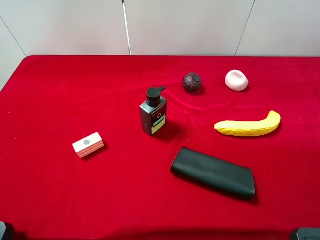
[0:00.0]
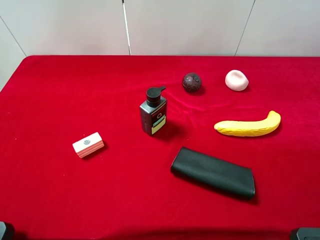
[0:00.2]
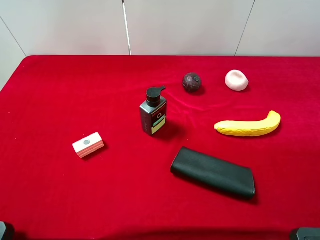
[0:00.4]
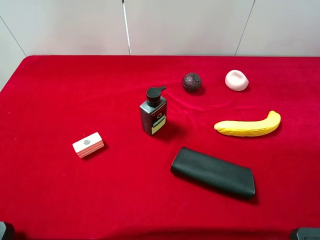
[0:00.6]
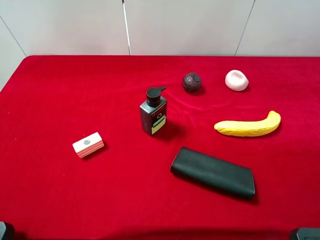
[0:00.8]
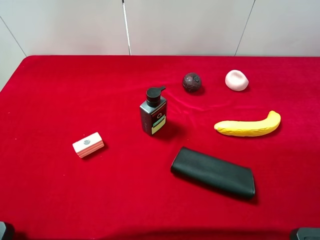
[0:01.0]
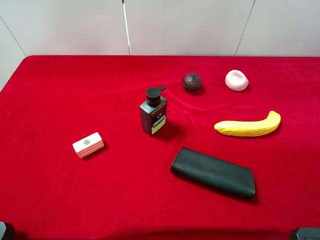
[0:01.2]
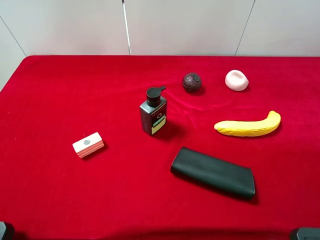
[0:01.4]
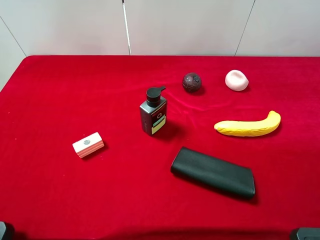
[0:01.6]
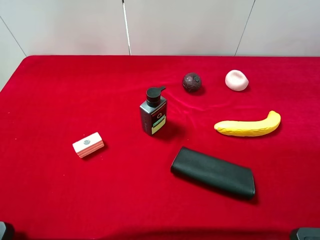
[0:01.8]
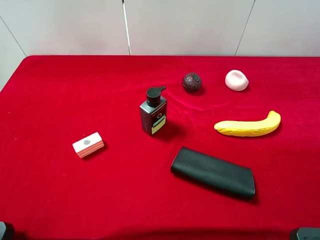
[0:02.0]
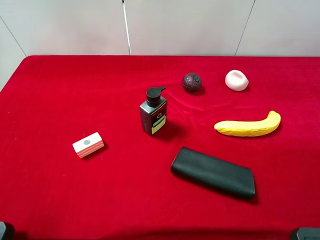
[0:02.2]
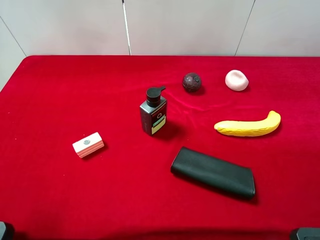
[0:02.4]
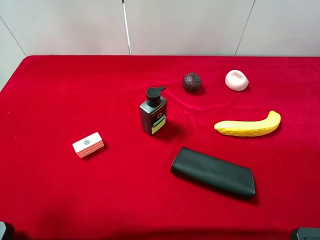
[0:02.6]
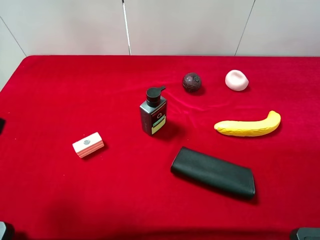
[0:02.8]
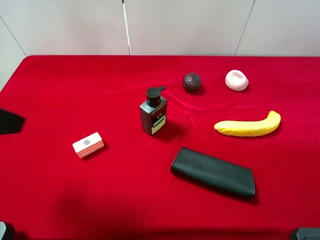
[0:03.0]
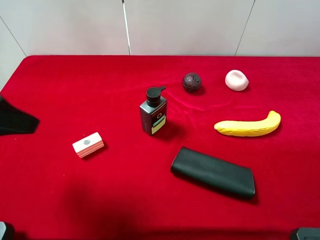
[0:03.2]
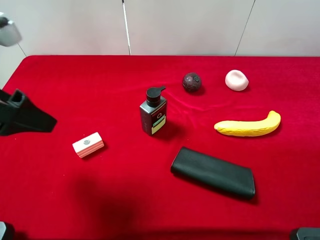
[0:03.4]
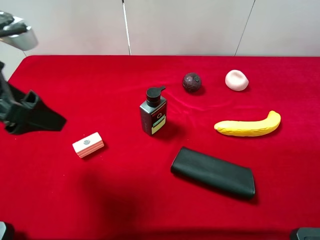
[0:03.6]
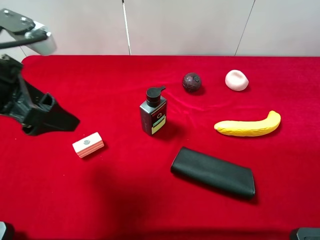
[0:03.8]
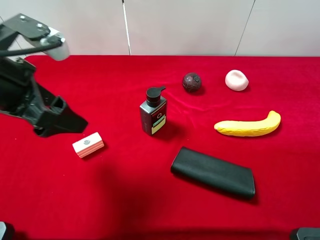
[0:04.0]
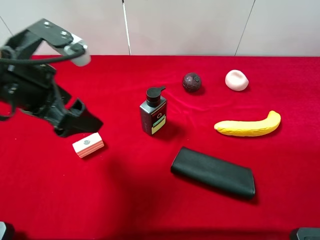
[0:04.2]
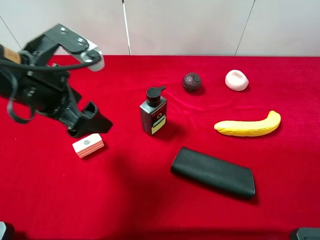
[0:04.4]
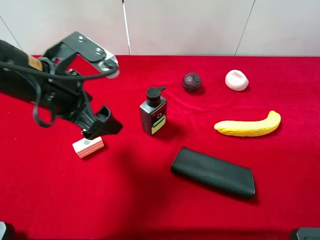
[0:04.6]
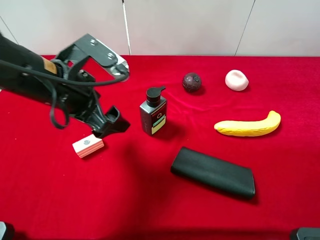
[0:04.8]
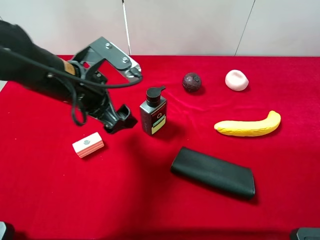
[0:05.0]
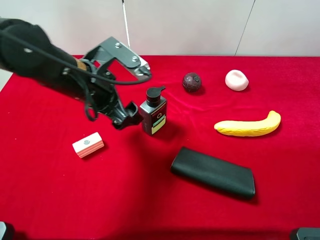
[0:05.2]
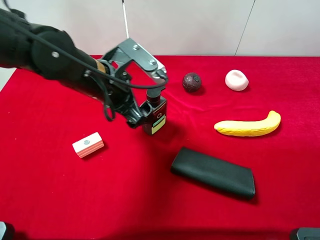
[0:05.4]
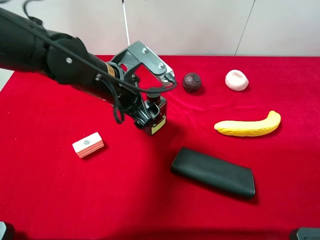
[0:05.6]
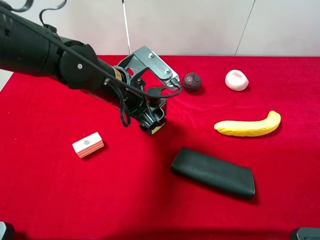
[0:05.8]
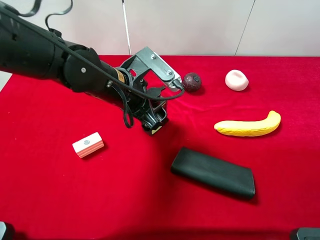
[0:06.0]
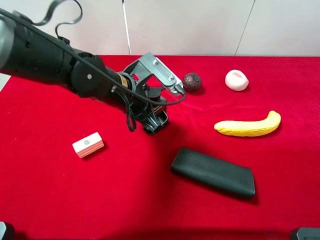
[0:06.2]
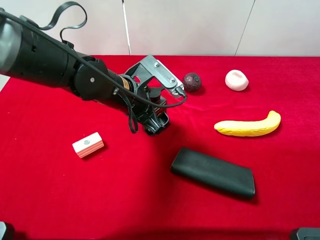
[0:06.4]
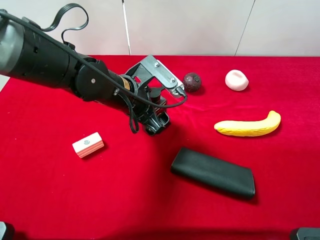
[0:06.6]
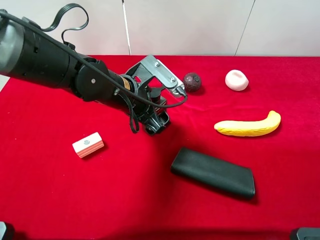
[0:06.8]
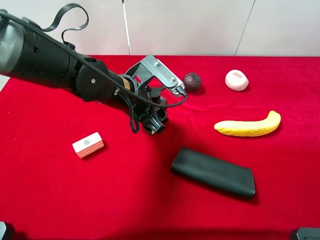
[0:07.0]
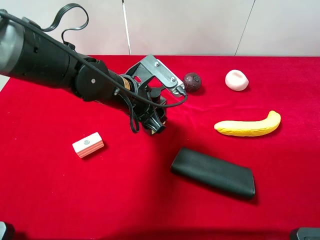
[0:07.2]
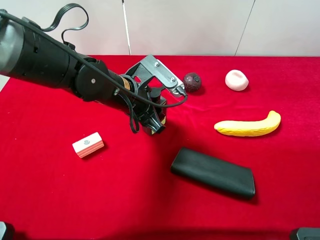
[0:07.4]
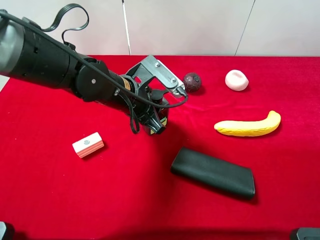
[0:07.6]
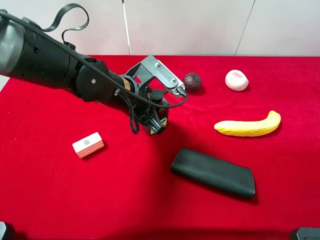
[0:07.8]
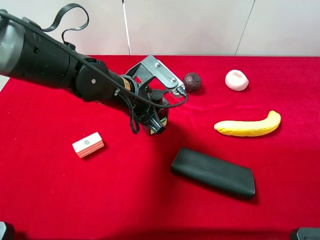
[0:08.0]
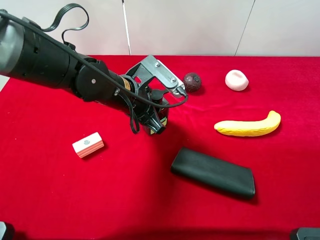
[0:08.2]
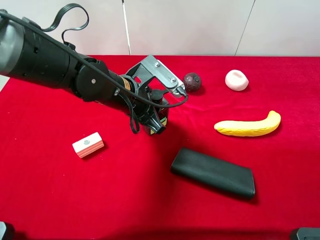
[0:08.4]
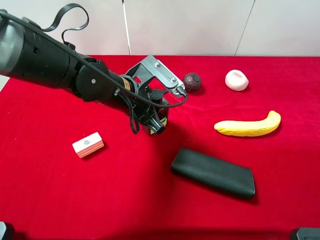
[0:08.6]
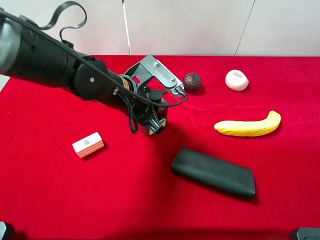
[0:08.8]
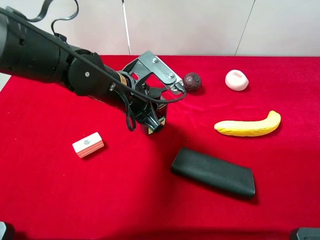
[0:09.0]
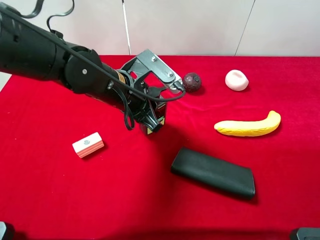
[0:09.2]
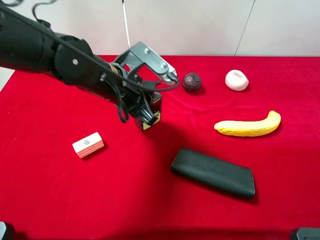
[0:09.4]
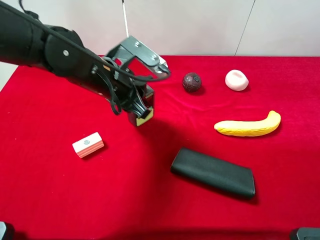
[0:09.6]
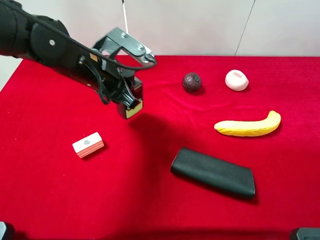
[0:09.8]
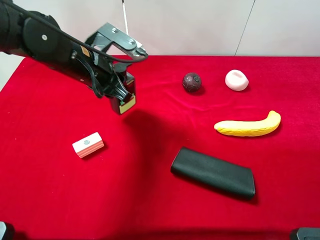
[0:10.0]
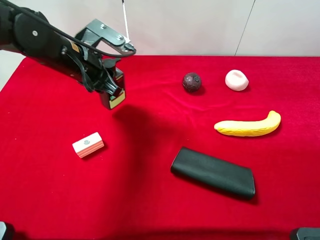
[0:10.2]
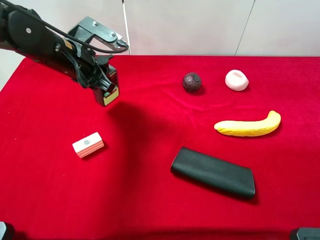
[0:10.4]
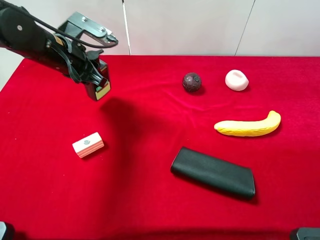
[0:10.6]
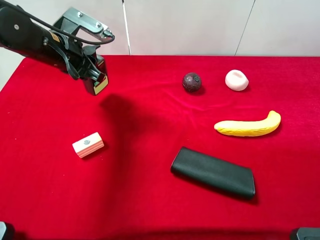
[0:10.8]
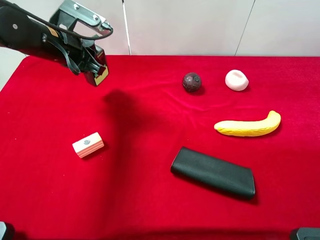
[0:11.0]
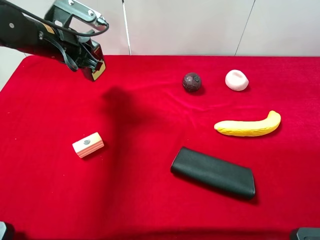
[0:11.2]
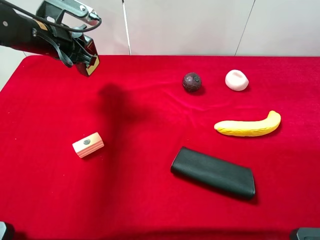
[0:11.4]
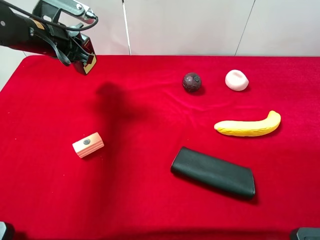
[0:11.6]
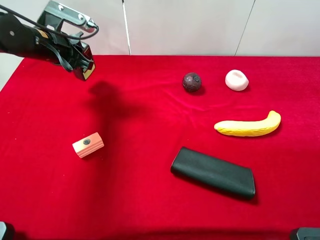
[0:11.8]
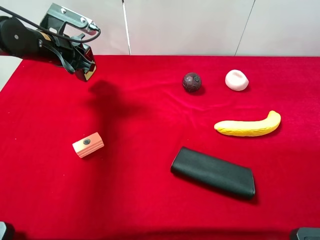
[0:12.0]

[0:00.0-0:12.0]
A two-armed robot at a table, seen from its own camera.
Task of the whole recording: the gripper move the object.
Step, 0:00.0 to 0:07.8: Grasp the hard facial cleanser with the left gripper.
0:00.0 to 0:01.6: The two grippers keep their place.
0:01.6 to 0:03.0: The left gripper shifts about 15 cm forward and to the right.
0:03.0 to 0:04.4: The left gripper is displaced to the right, forward and downward by some 15 cm.
0:04.4 to 0:06.0: The left gripper goes some 15 cm to the right, downward and forward.
0:06.0 to 0:07.6: The left gripper closes up.
0:07.6 to 0:09.0: Neither gripper changes place.
0:09.0 to 0:10.4: The left gripper shifts some 10 cm to the left and forward.
0:10.4 to 0:12.0: The left gripper shifts approximately 5 cm to the left.

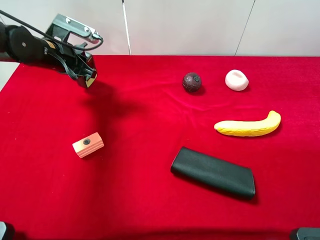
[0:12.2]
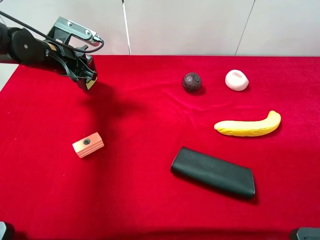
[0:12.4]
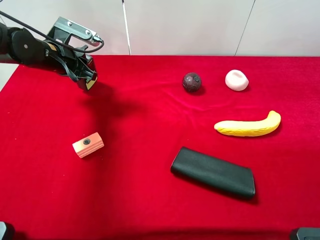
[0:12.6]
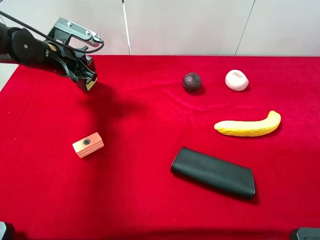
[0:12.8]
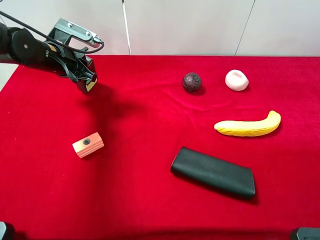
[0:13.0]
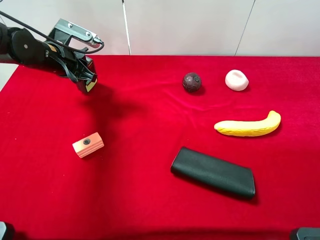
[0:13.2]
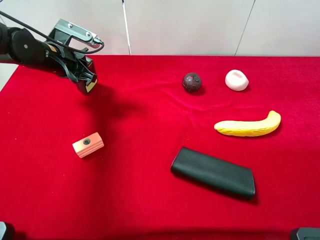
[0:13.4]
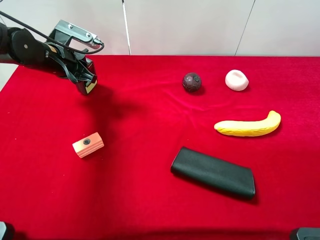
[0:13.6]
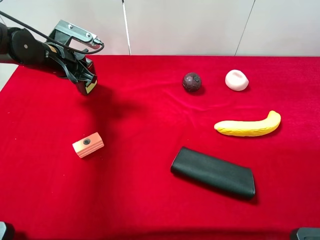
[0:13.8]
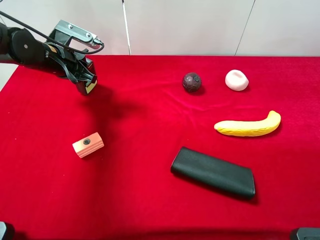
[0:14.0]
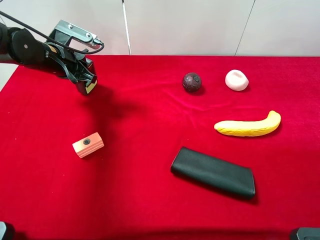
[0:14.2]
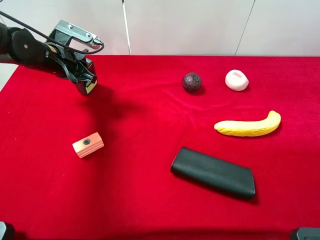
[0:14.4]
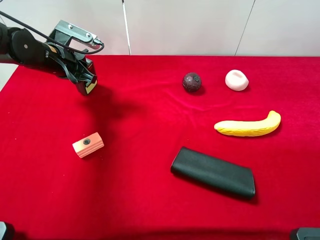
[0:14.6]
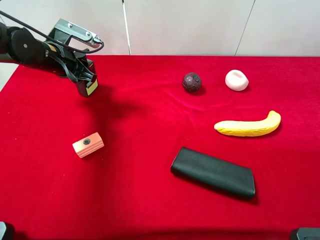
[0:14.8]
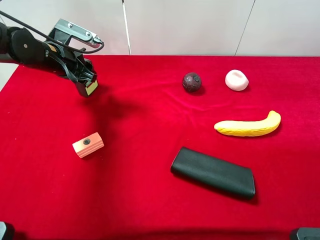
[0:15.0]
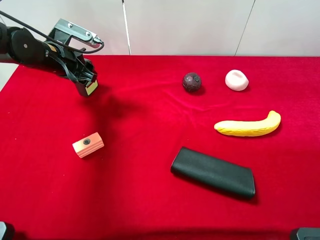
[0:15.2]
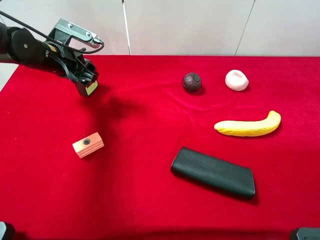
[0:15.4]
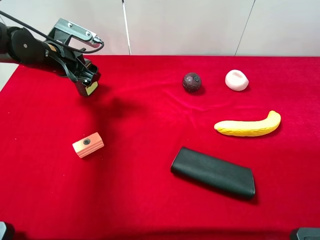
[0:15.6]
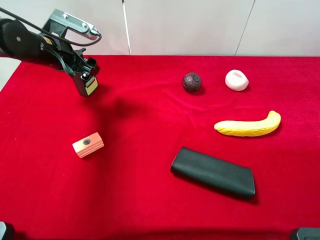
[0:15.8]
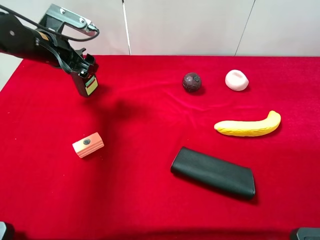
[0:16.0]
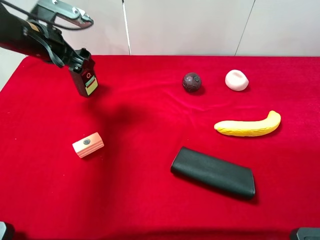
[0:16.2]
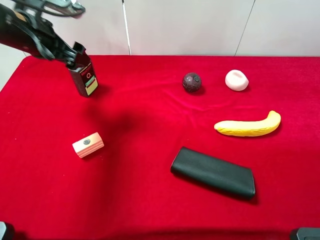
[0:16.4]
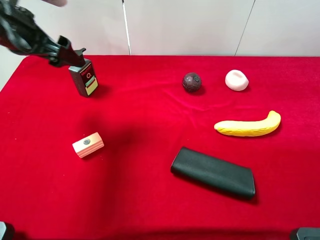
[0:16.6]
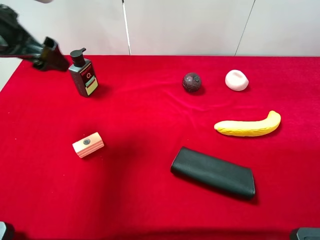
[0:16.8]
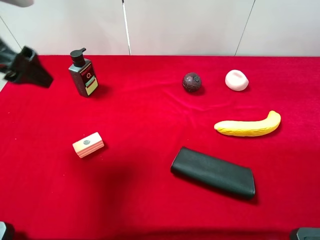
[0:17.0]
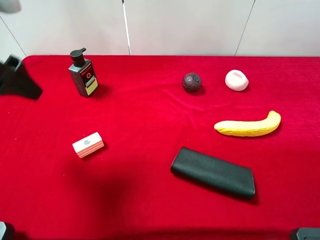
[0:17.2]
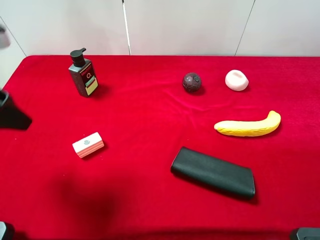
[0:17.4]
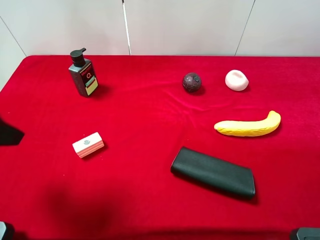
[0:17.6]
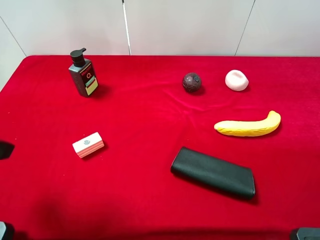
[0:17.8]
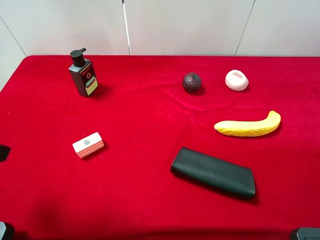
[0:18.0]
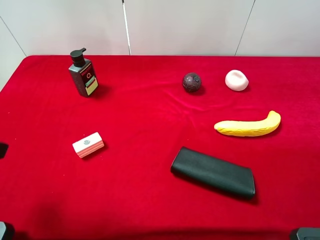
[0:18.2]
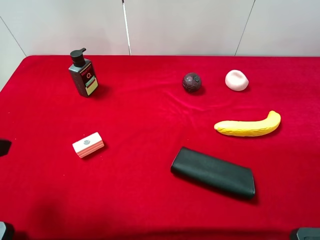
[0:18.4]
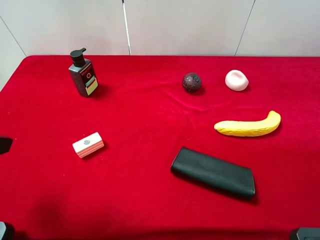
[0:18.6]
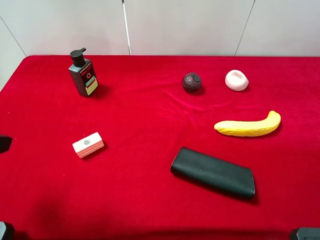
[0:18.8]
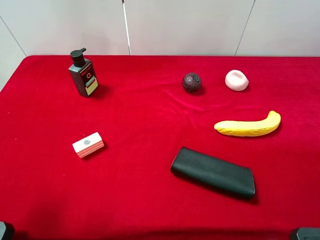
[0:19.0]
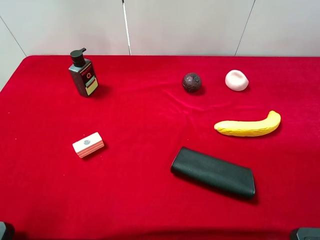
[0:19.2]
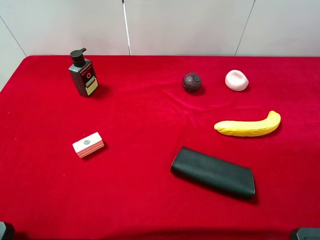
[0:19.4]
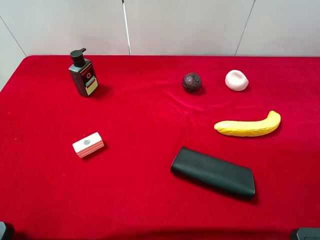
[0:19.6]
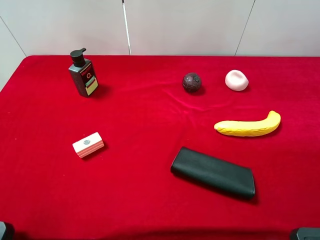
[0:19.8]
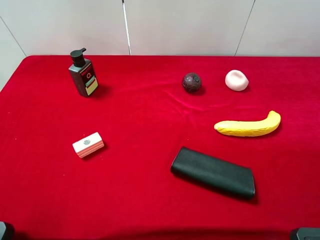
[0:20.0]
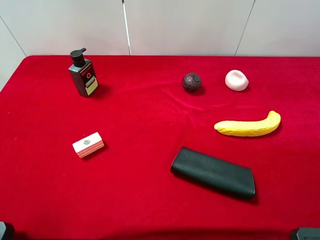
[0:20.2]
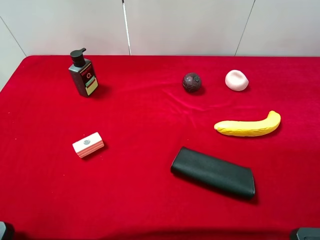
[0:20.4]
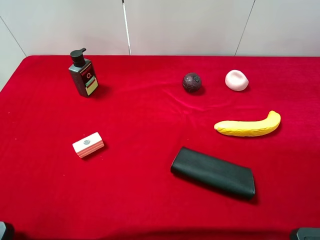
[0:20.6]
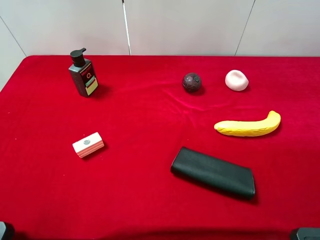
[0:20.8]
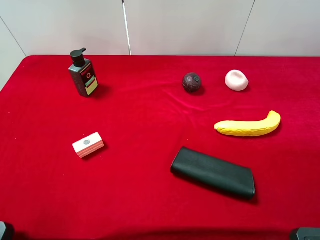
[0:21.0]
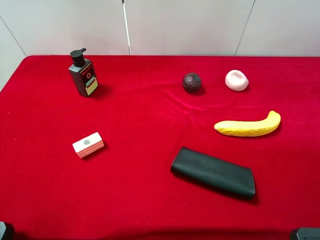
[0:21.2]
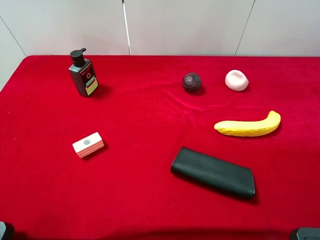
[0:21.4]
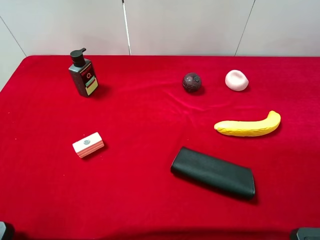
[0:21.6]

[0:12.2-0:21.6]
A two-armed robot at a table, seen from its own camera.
Task of the whole recording: the gripper move the object.
Step, 0:12.2 to 0:16.8: Place the hard facial cleanser on the table with the left gripper.
0:12.2 to 0:13.8: Both grippers stay put.
0:13.8 to 0:15.4: The left gripper opens.
0:15.4 to 0:17.0: The left gripper shifts approximately 20 cm upward and backward.
0:17.0 to 0:18.4: The left gripper shifts approximately 15 cm backward.
0:20.0 to 0:21.6: Neither gripper changes place.

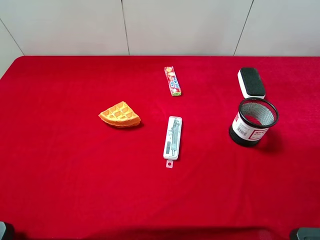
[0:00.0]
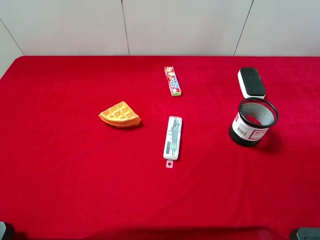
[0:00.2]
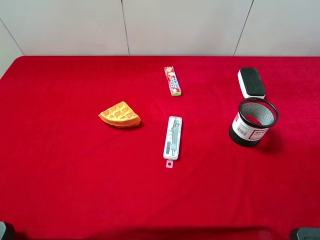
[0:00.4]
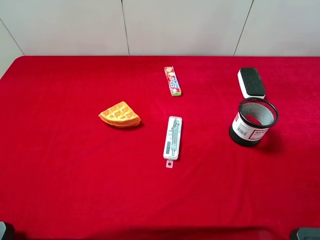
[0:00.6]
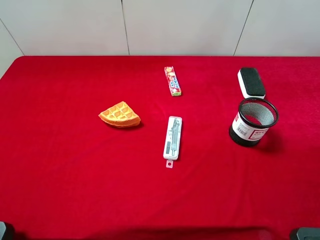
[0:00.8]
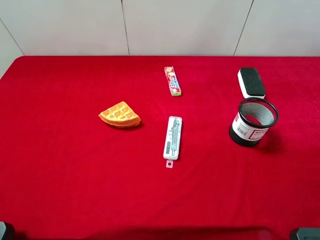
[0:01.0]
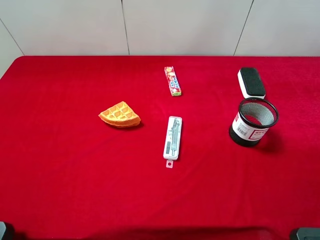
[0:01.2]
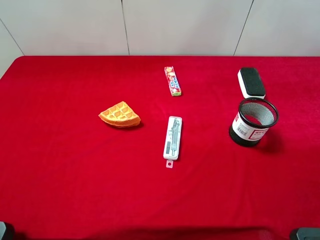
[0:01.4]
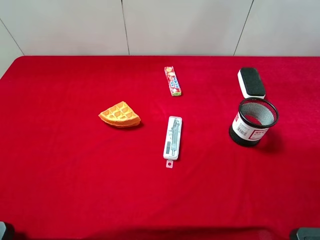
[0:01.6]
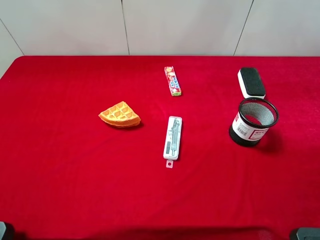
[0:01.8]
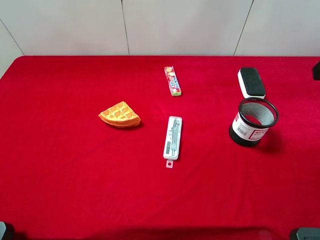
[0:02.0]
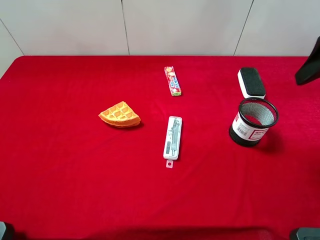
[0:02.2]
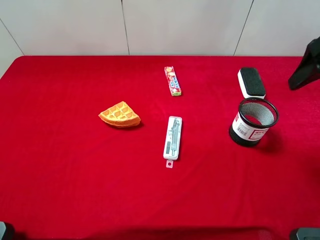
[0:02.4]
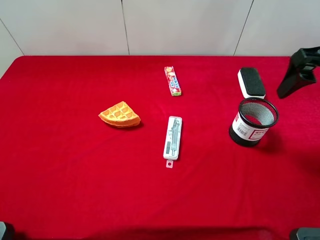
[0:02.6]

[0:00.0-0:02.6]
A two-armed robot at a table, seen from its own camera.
Task of the whole recording: the gripper move the object.
0:01.2 to 0:02.6: The right gripper moves forward, roughly 20 cm.
